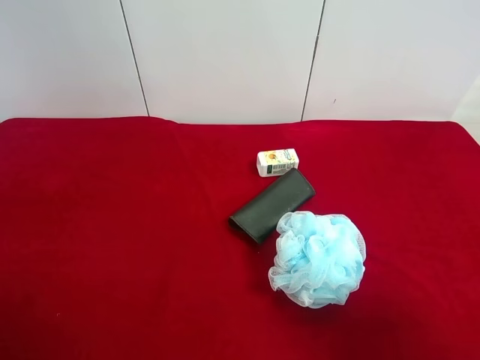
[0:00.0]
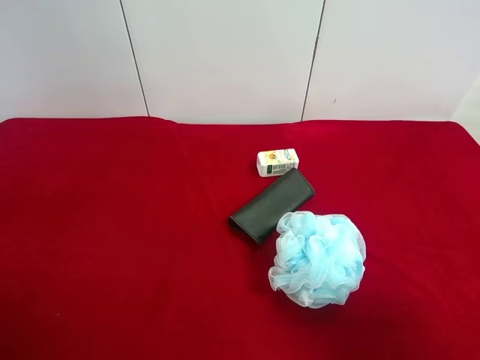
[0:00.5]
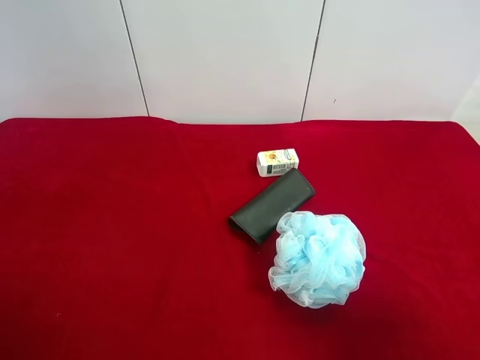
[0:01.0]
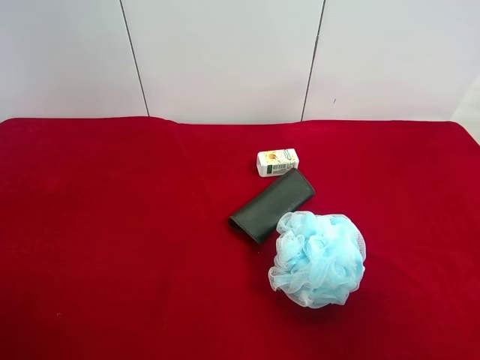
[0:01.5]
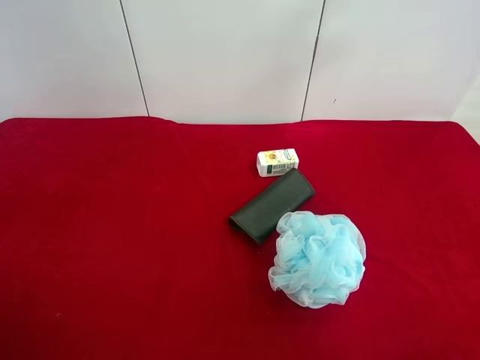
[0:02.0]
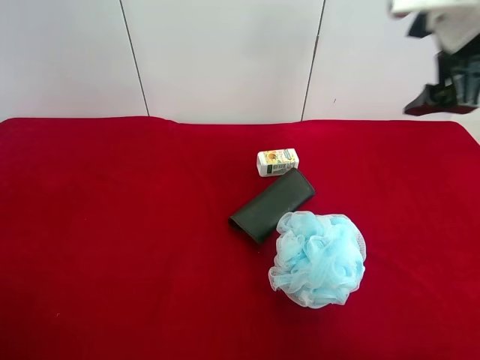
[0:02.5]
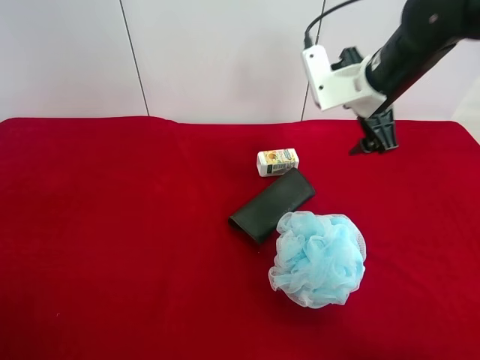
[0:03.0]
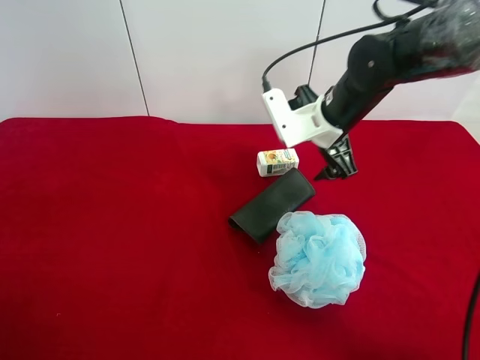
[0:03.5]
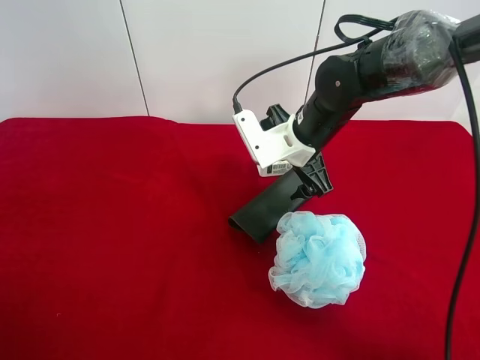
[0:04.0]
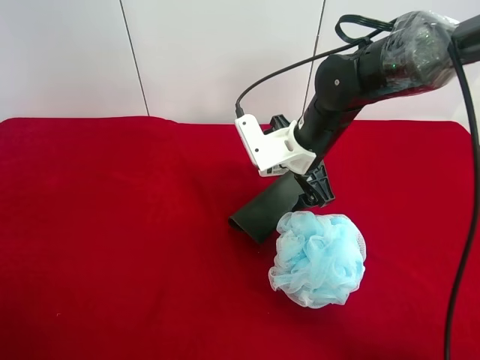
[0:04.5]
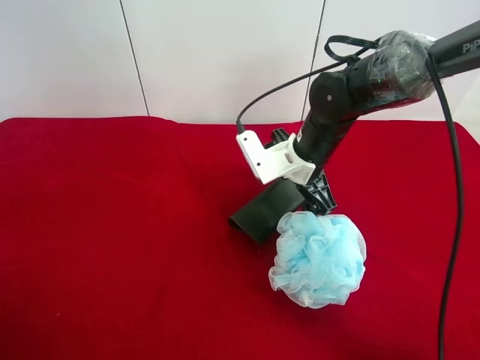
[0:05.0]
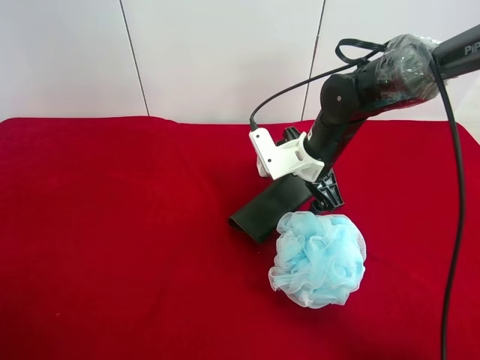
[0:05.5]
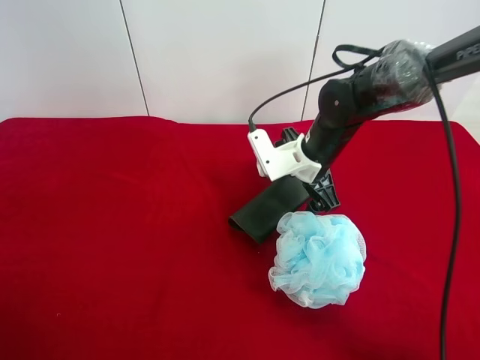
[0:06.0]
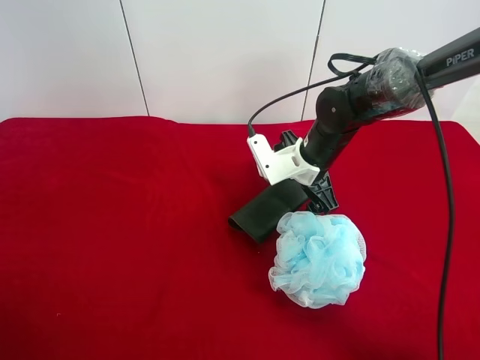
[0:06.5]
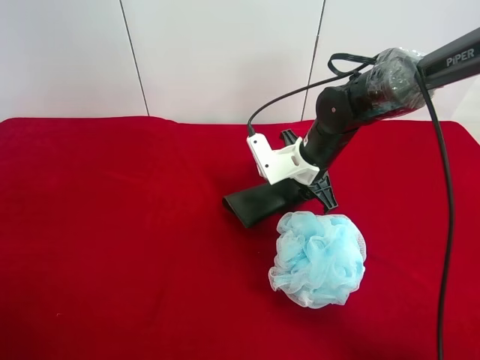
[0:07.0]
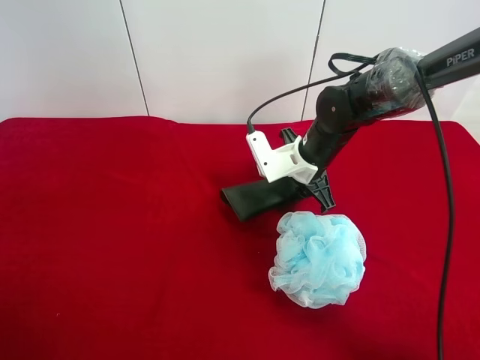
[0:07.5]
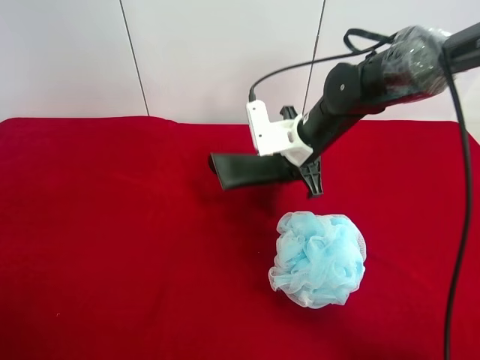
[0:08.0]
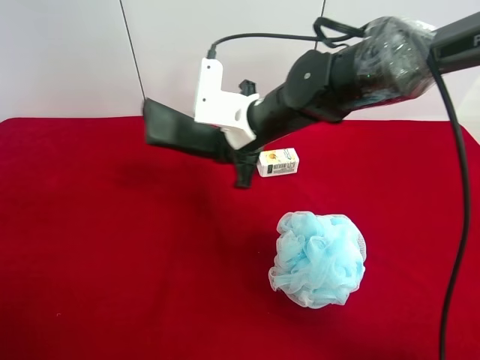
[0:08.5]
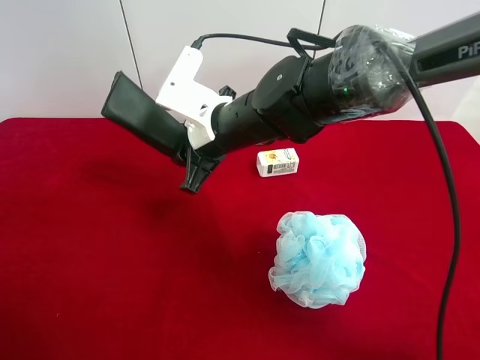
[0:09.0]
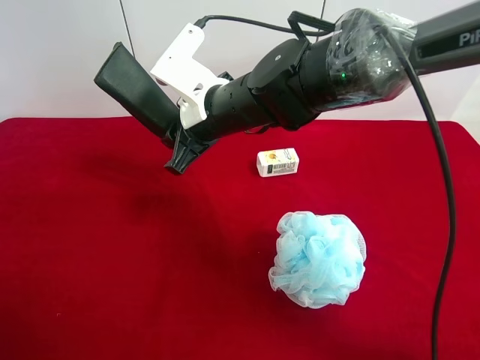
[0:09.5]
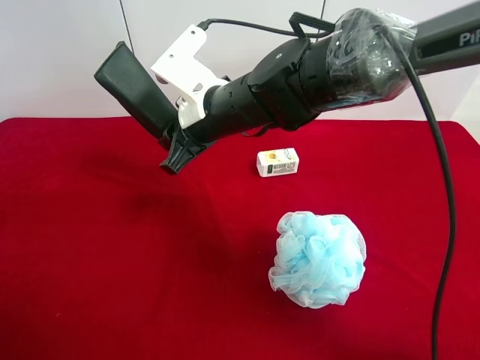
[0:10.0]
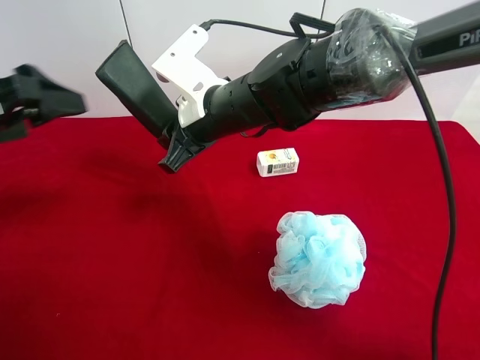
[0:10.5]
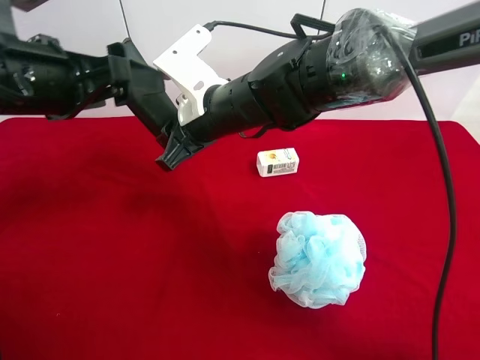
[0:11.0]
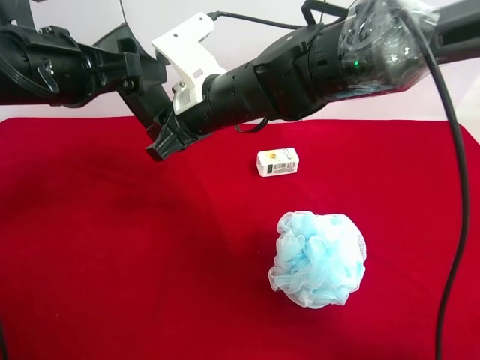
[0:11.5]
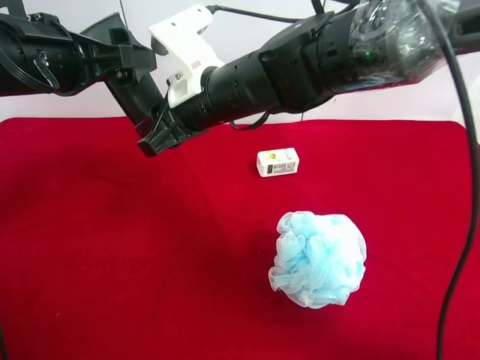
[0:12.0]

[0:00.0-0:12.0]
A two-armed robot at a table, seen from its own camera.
Task of the whole recording: use the right gripper to pick up the item and transfer it from the right gripper to the left gripper.
Step, 0:00.0 to 0:06.5: Use the right gripper to grab the eyeglass case on the right side of the table.
0:00.0 to 0:02.0: The right gripper heads upward and forward, covering approximately 20 cm.
0:02.0 to 0:04.0: The right gripper is displaced downward, forward and to the left by approximately 35 cm.
0:04.0 to 0:06.0: The right gripper moves approximately 5 cm.
0:06.0 to 0:08.0: The right gripper closes up.
0:08.0 to 0:10.0: The right gripper moves to the left and upward, roughly 15 cm. Meanwhile the left gripper heads forward, covering roughly 10 cm.
0:10.0 to 0:12.0: The left gripper is displaced forward and to the right by approximately 20 cm.

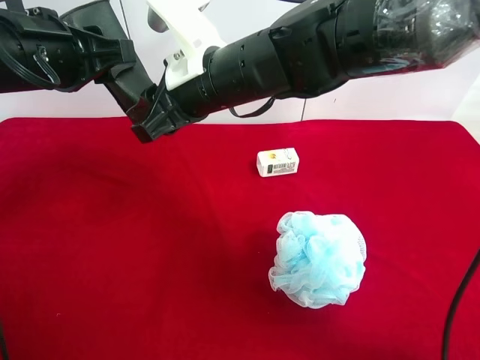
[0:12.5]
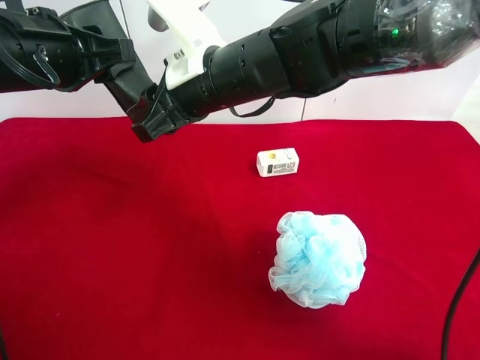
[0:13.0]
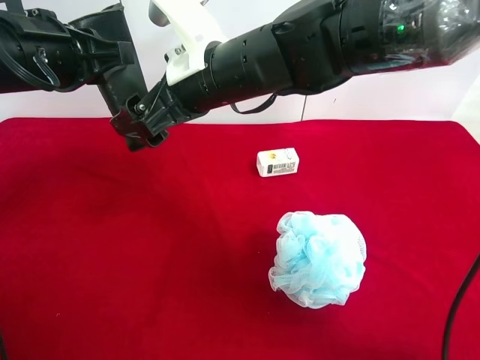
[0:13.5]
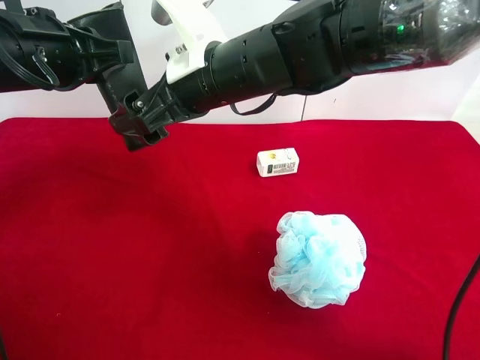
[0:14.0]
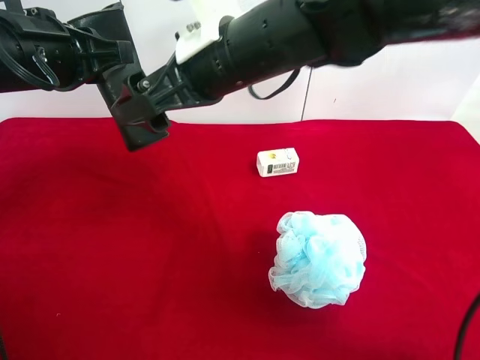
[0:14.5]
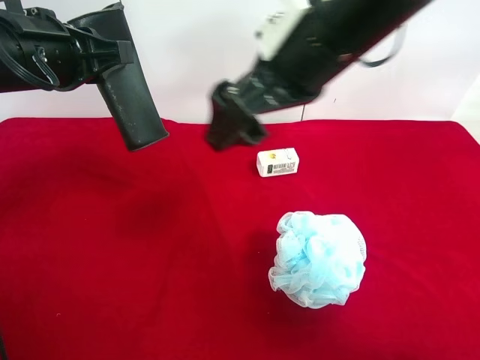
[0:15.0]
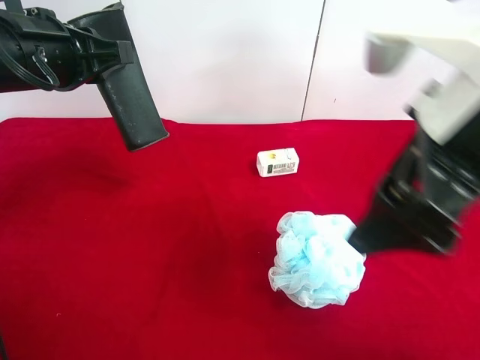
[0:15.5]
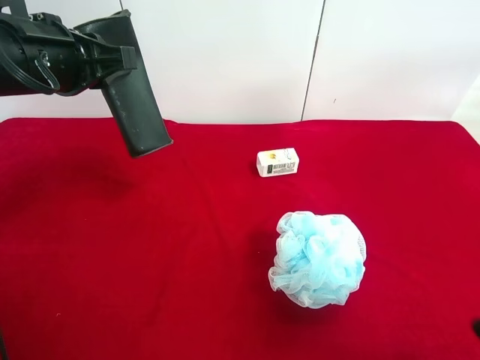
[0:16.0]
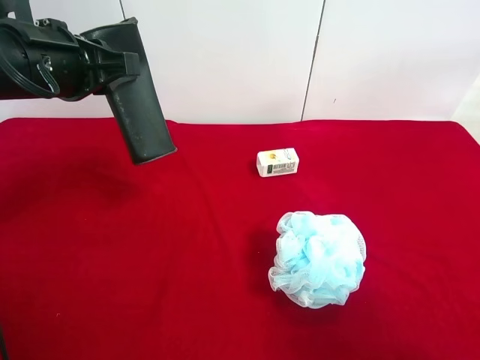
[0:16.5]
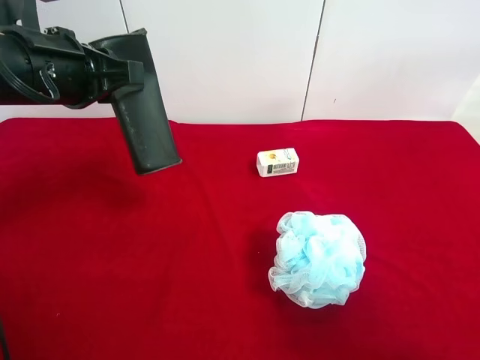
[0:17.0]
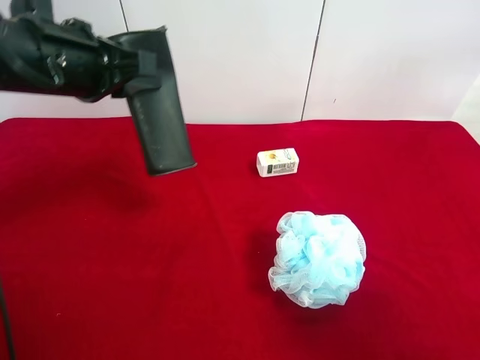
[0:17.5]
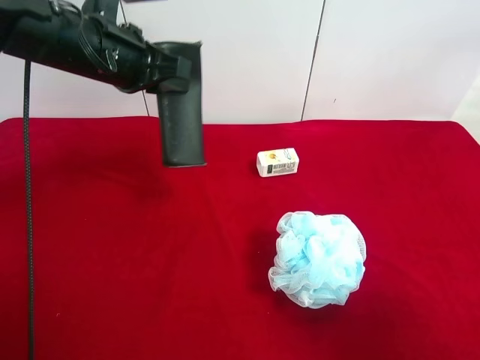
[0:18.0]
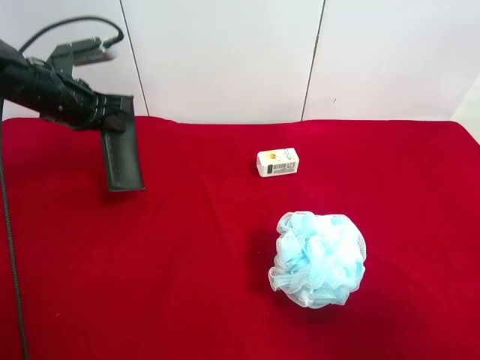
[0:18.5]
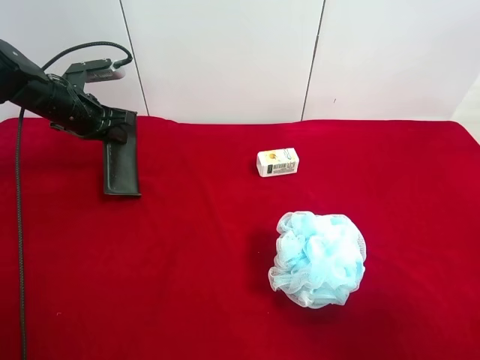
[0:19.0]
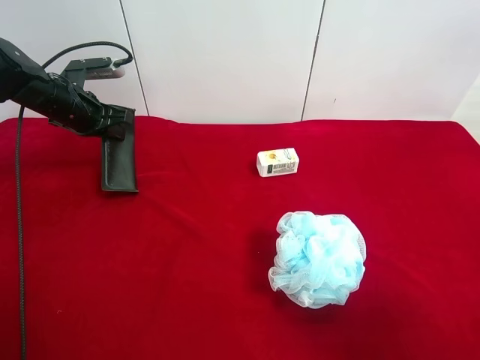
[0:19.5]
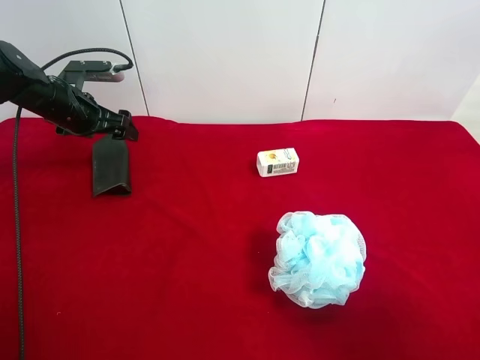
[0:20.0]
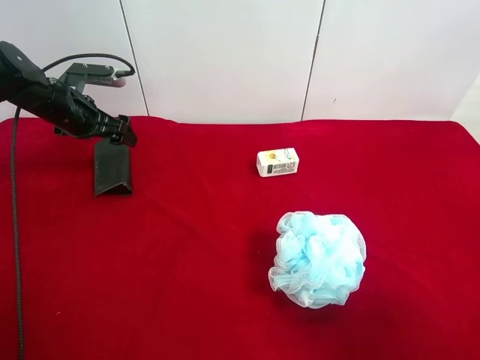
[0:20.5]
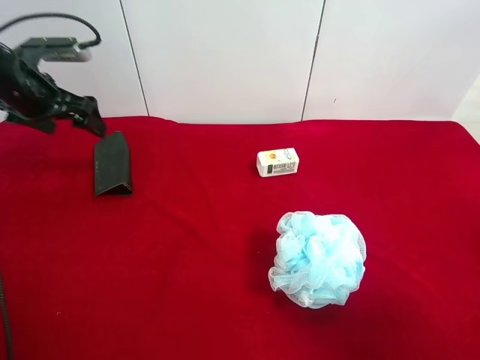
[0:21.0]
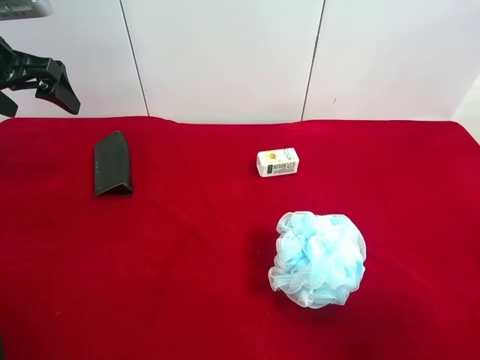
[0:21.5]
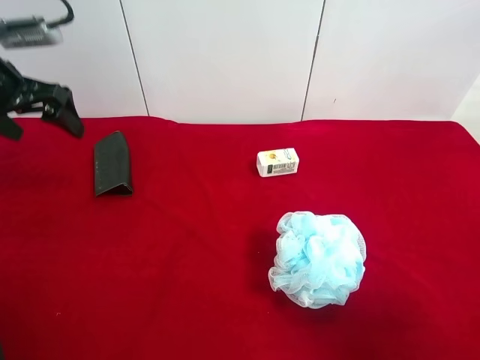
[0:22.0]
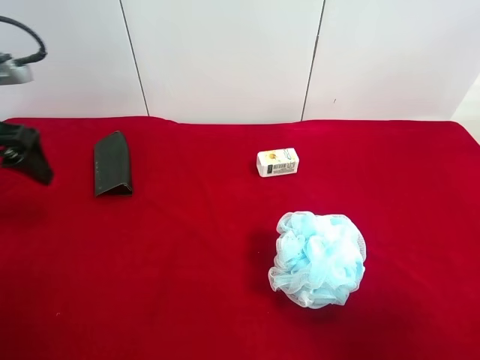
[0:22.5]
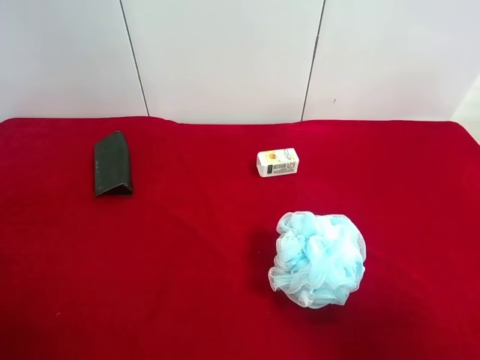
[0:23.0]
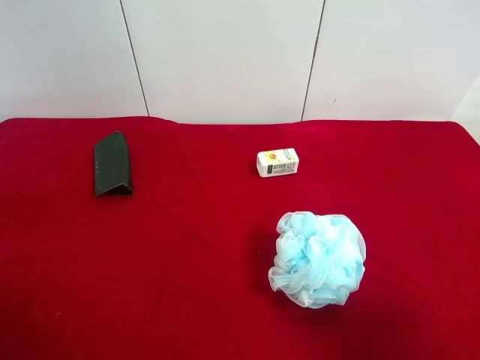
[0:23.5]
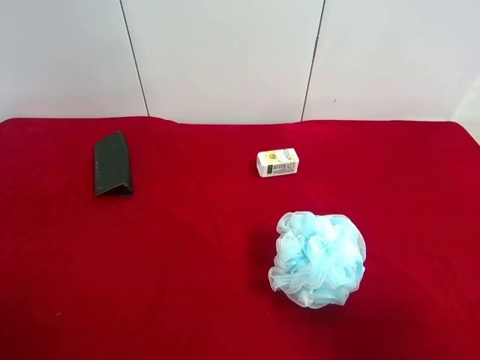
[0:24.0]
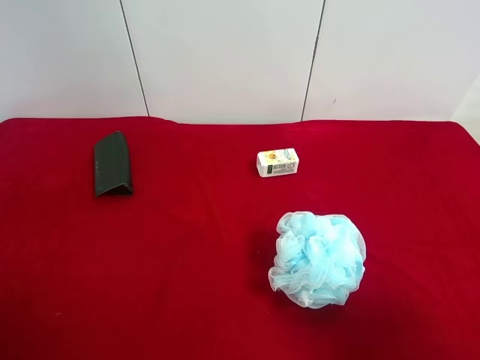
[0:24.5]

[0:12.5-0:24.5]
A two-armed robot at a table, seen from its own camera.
Task of the whole recording: use the right gripper to pick up the item and transfer it from the right gripper to the left gripper.
Step, 0:13.5 to 0:19.5: The left gripper places eyeglass case on the left side of the table.
0:12.5 to 0:14.5: The right gripper opens its fingers.
0:14.5 to 0:16.5: The right gripper moves to the right and backward, approximately 40 cm.
0:16.5 to 0:18.5: The left gripper is displaced forward, downward and to the left by approximately 20 cm.
0:18.5 to 0:20.5: The left gripper shifts by about 5 cm, and opens up.
0:20.5 to 0:22.5: The left gripper is displaced backward and upward by about 20 cm.
0:22.5 to 0:24.5: The left gripper shifts about 25 cm backward.
